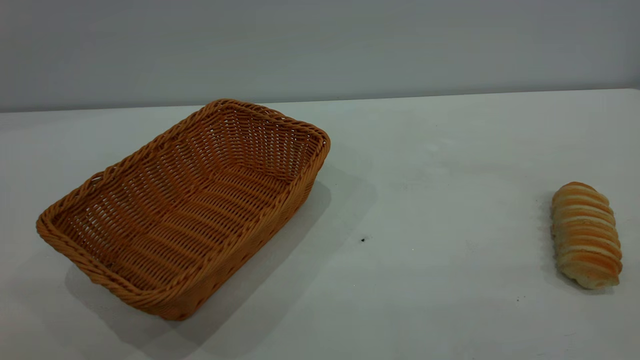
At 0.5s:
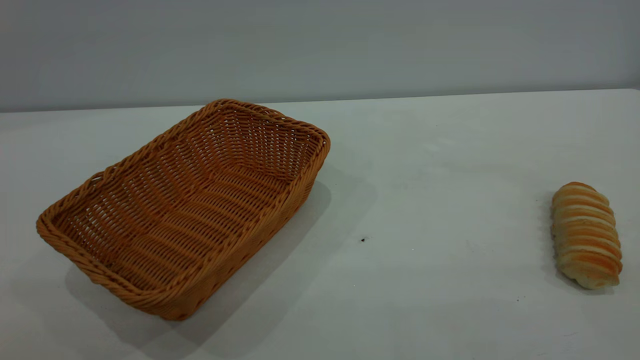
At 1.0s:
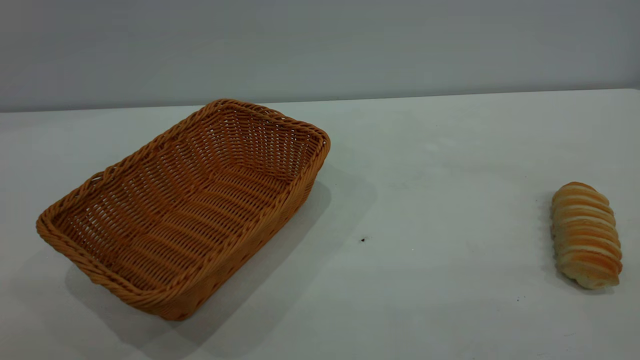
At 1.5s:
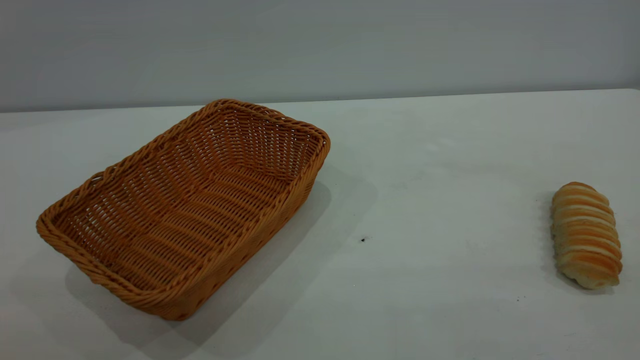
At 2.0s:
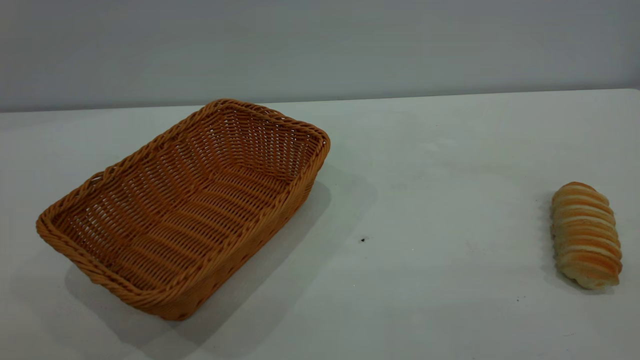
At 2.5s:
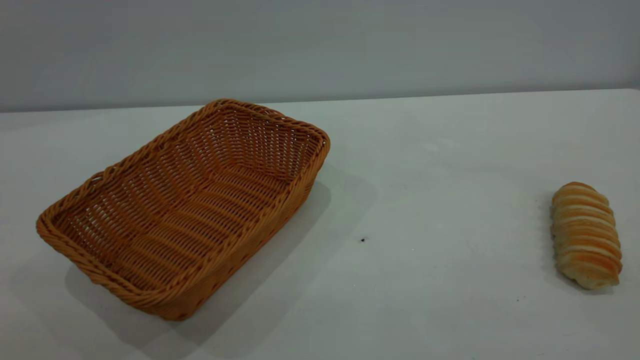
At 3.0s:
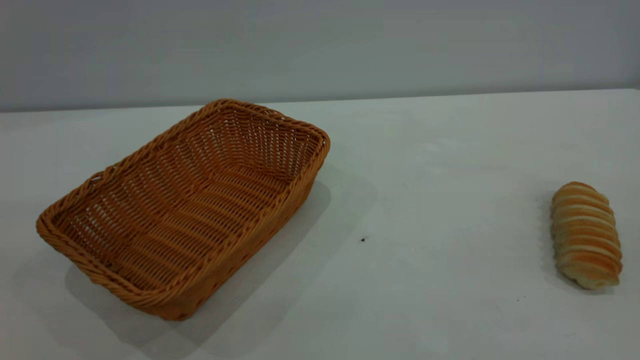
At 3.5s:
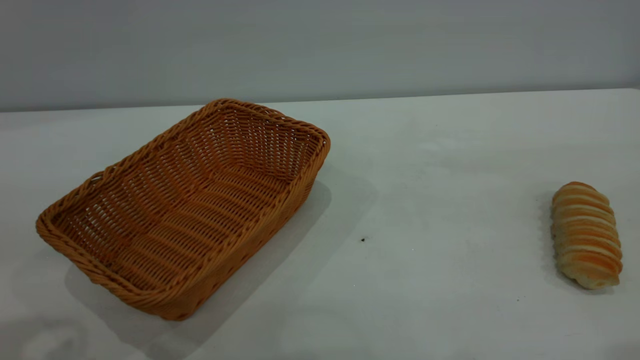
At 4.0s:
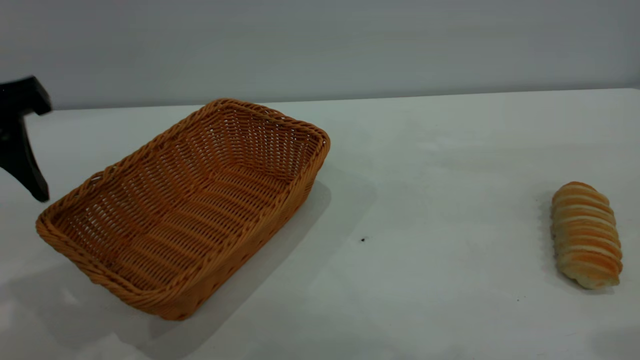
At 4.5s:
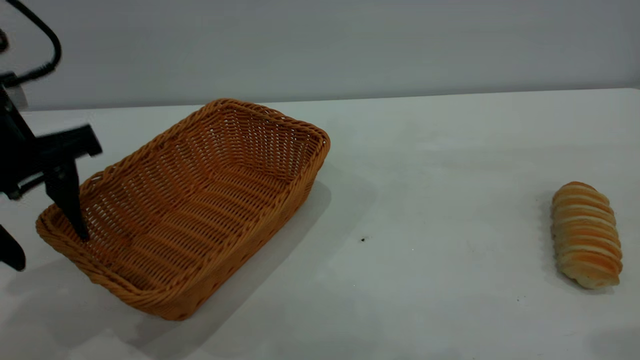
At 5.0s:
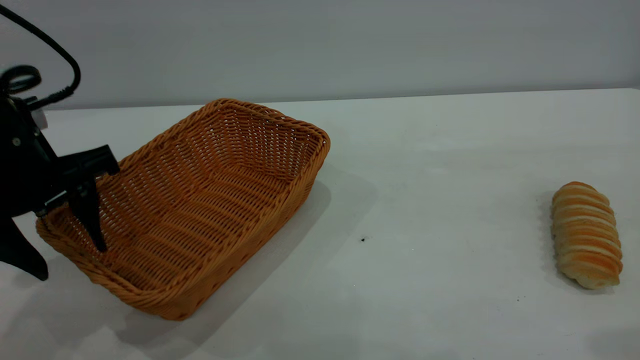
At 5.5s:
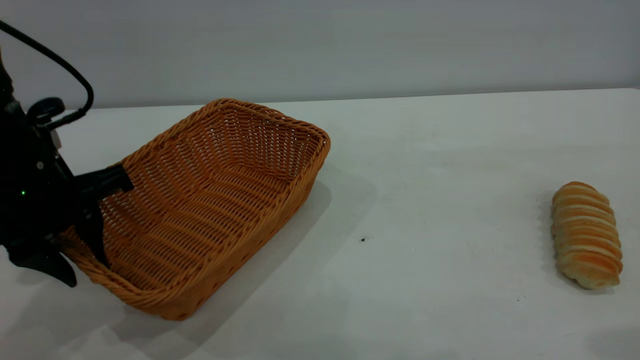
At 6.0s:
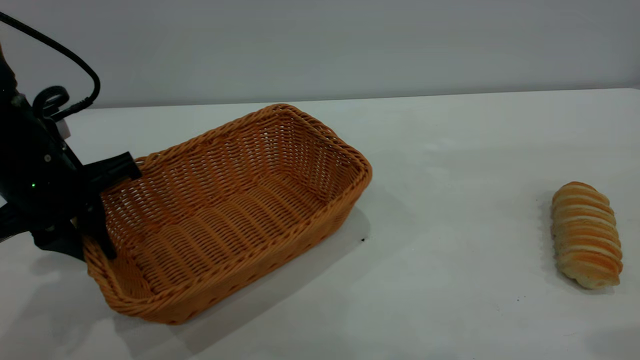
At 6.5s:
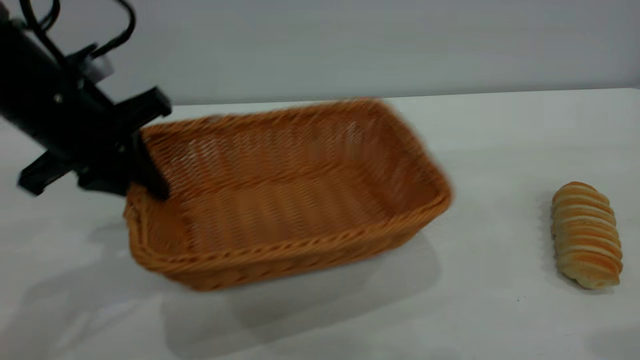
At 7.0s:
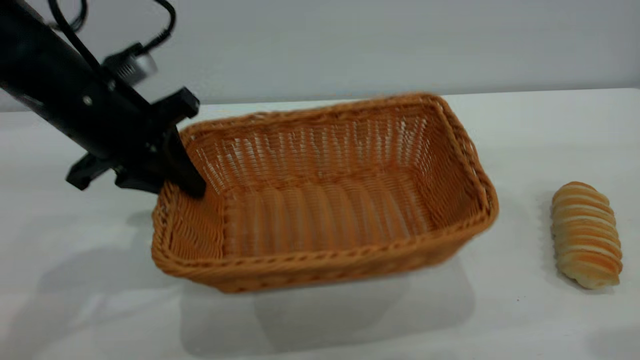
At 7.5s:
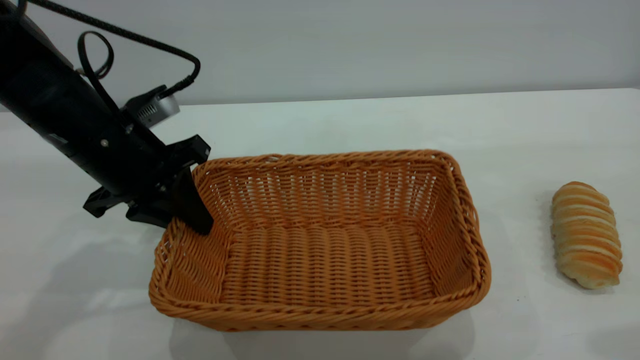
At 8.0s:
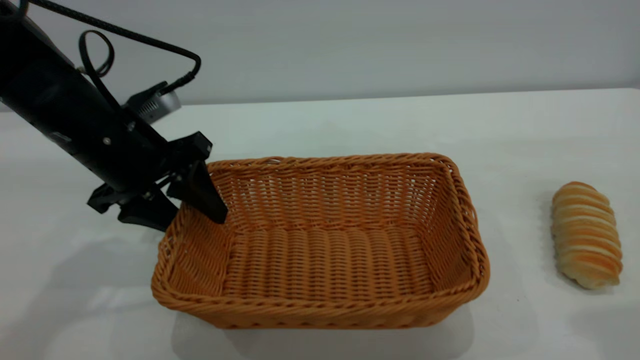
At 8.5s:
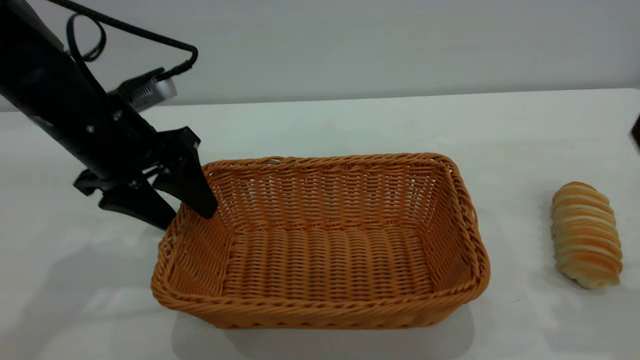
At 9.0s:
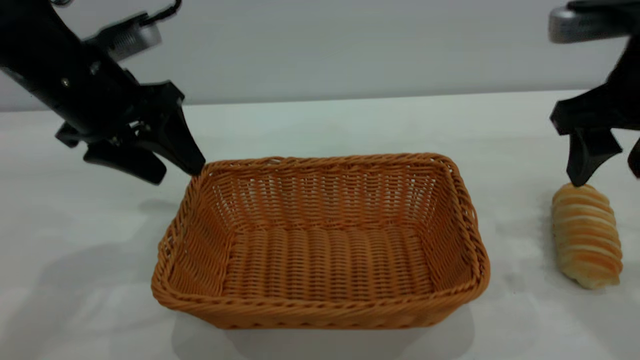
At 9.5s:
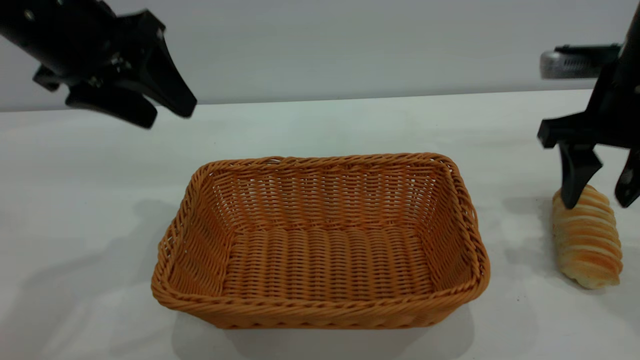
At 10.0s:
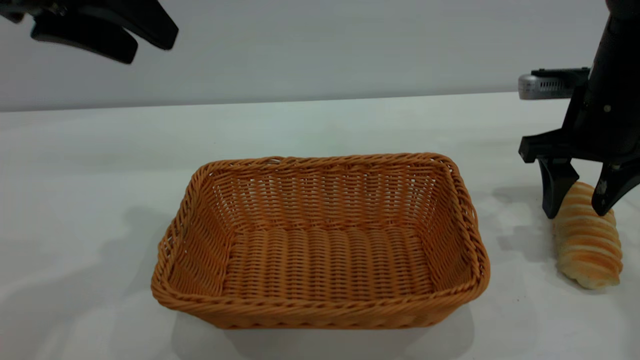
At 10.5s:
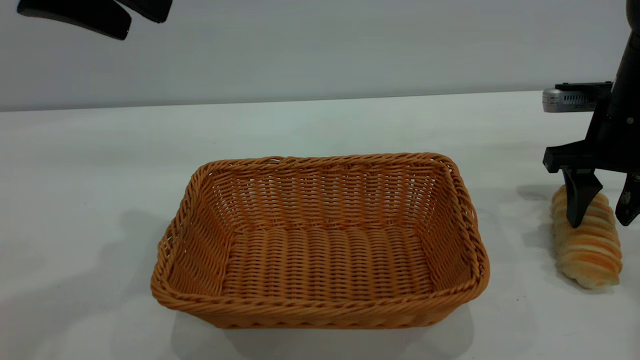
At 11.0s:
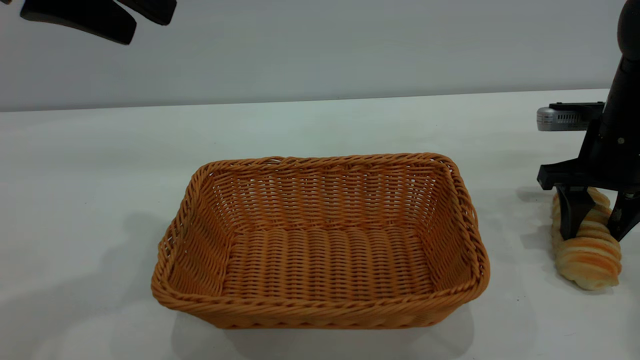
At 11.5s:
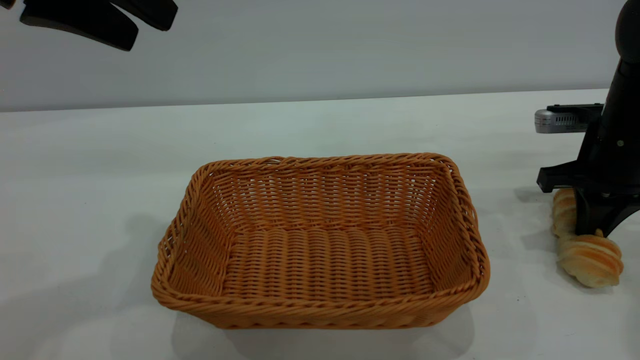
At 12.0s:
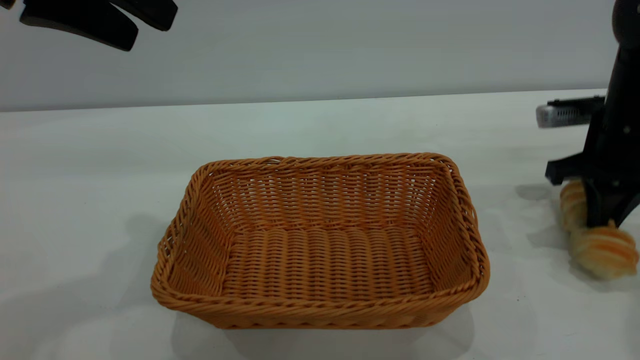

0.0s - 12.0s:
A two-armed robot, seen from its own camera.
Task of the whole recording: One hand grasps the yellow basket and places it in the middle of the table, while the other hand picks up the long bread and puts it into the yellow basket.
Step, 0.0s - 8.5s: Move the basket to the center of view.
2.0s - 4.0s: The left gripper goes some 25 cm forward.
4.0s - 6.0s: The left gripper shifts some 10 cm downward and forward, and closes its fingers.
6.0s - 8.0s: The left gripper shifts by about 5 cm, and opens up.
8.0s - 10.0s: The left gripper moves upward, some 20 cm; the right gripper heads downward and forward, covering some 25 cm.
10.0s - 12.0s: The right gripper closes its fingers.

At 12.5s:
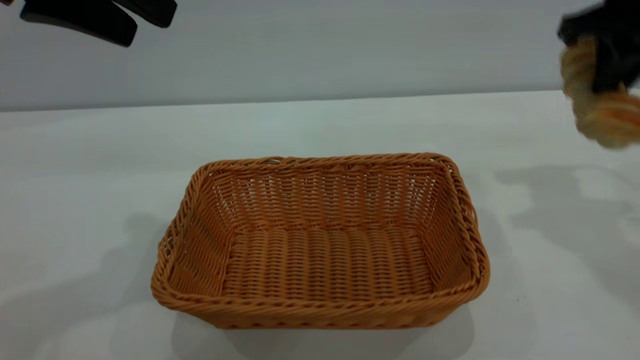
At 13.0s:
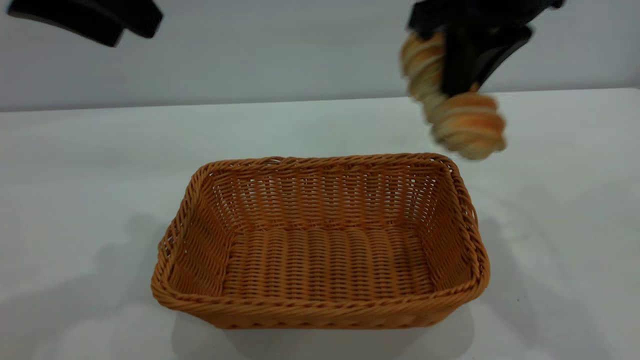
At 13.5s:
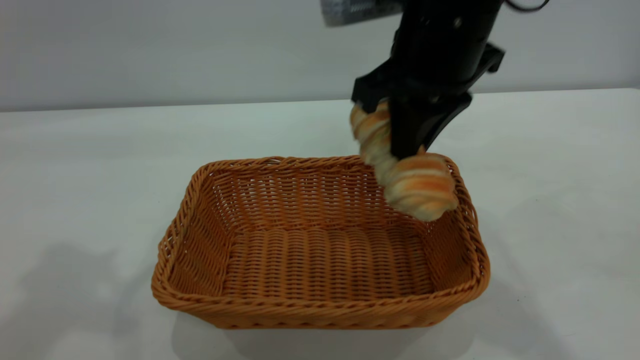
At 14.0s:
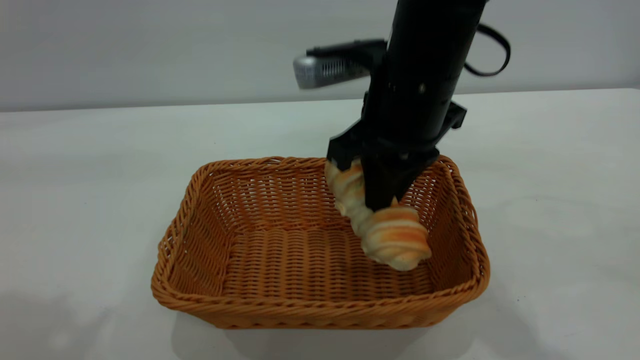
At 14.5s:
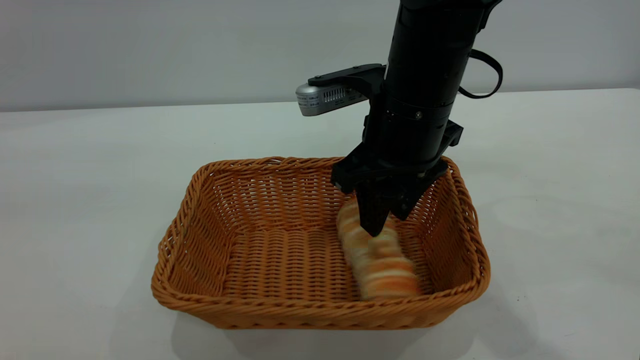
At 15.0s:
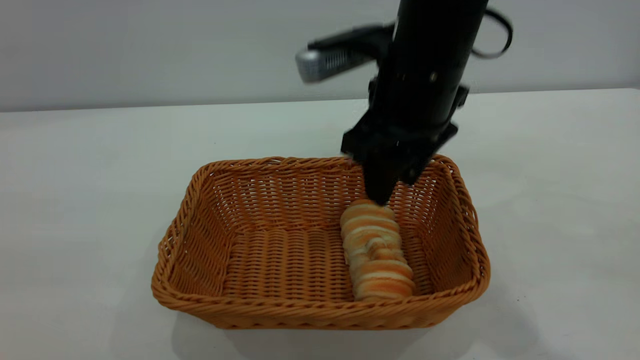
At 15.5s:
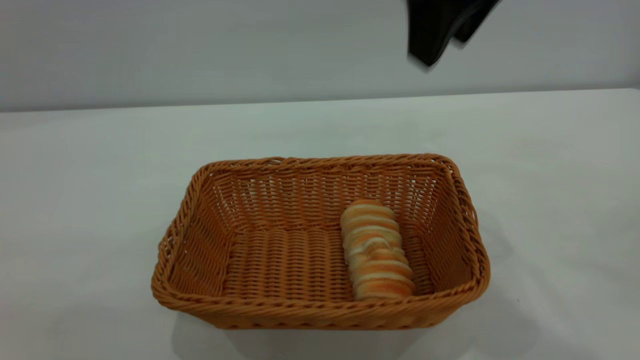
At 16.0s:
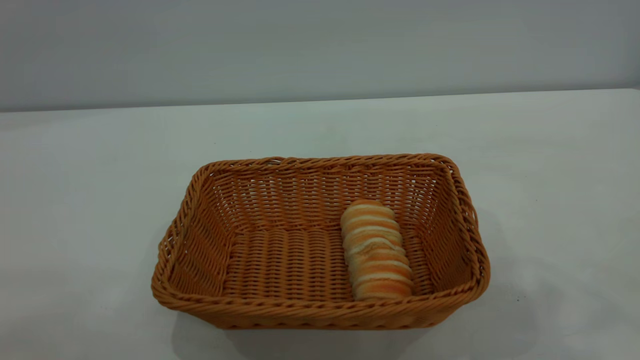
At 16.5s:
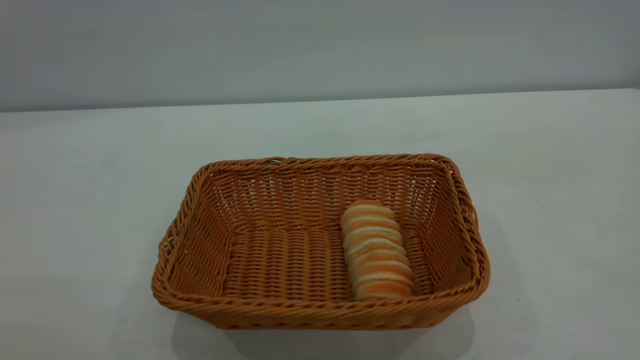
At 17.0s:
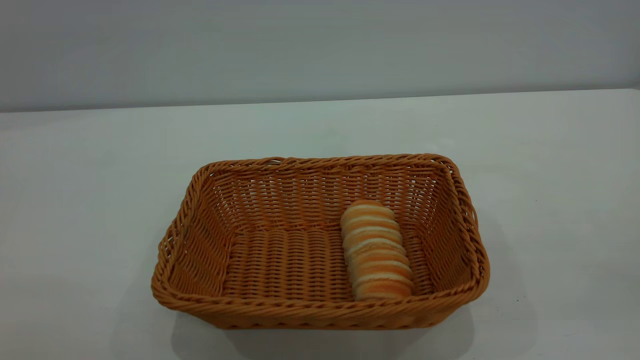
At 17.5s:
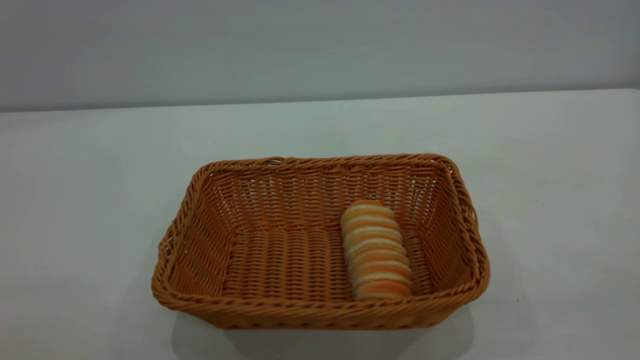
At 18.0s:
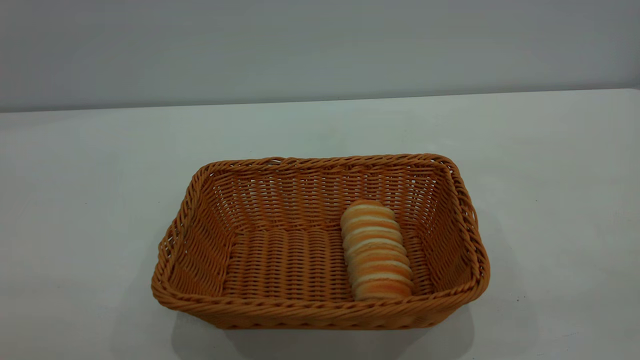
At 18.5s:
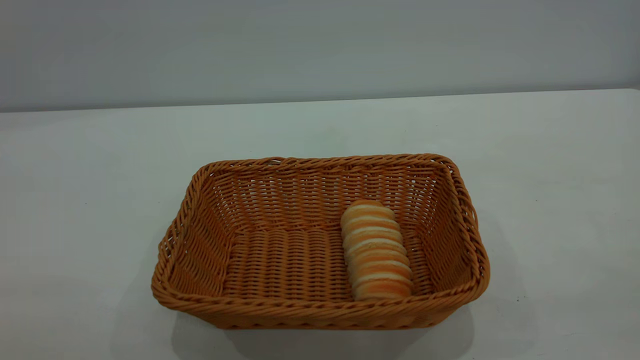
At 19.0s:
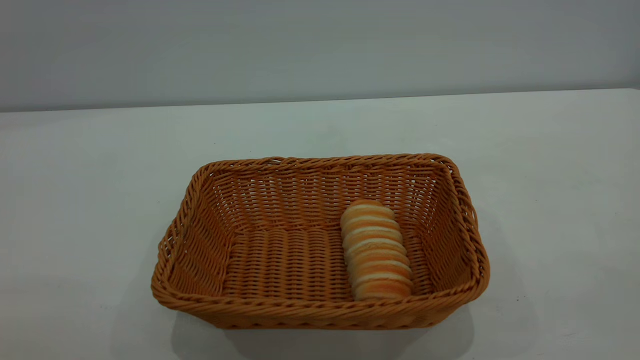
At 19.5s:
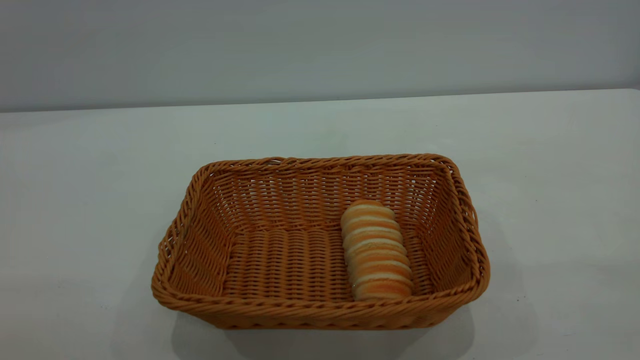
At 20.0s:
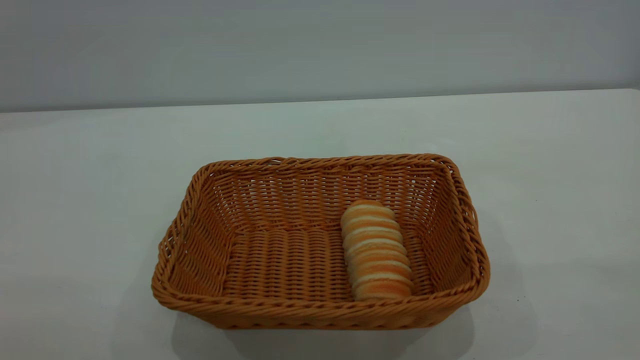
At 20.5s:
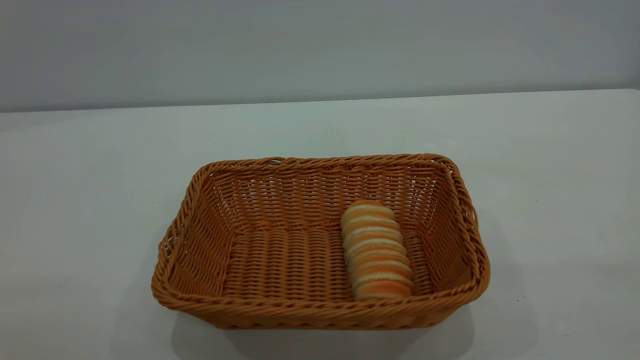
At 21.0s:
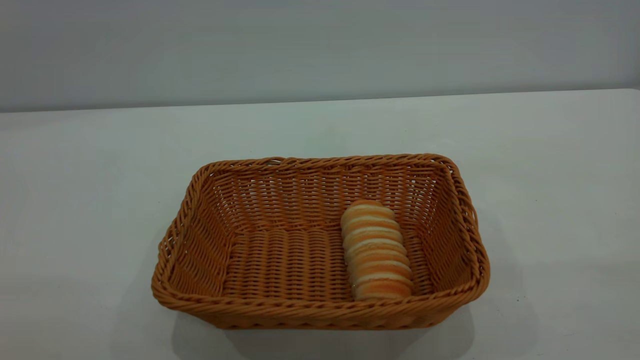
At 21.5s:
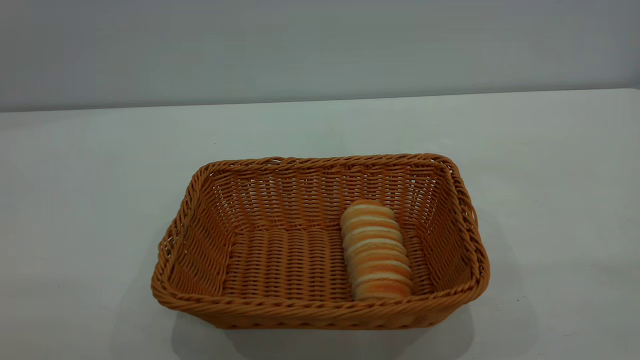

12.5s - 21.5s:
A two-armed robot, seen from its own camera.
Task of the whole recording: One hand grasps the yellow basket and places it in the middle of the table, while the other hand picks up the long bread and puts it into the yellow basket.
Step, 12.5s - 15.0s: place the bread into the basket.
12.5s - 14.5s: The right gripper goes approximately 20 cm to the left and downward, and opens up; the left gripper shifts about 20 cm backward and upward.
14.5s - 17.0s: The left gripper travels backward and downward by some 15 cm, while the right gripper moves backward, to the right and upward, some 50 cm.
19.5s - 21.5s: Both grippers stay put.
